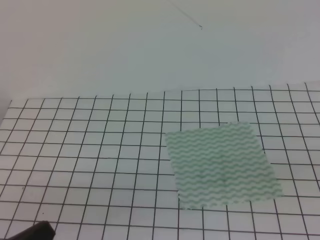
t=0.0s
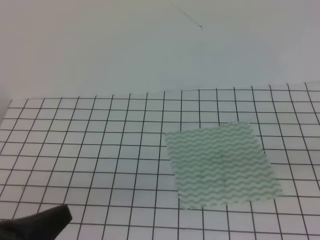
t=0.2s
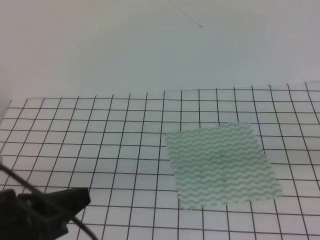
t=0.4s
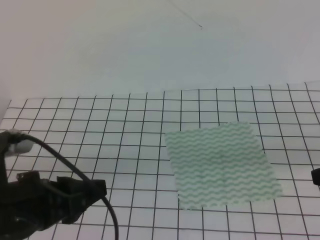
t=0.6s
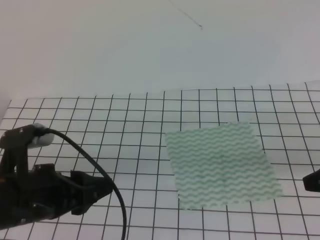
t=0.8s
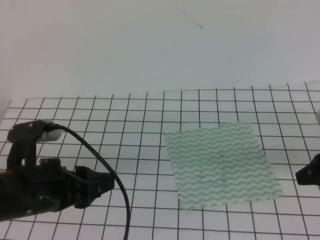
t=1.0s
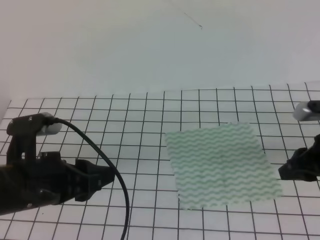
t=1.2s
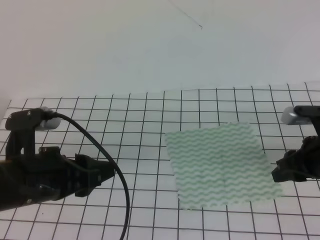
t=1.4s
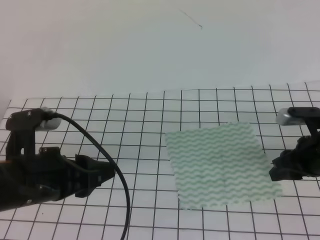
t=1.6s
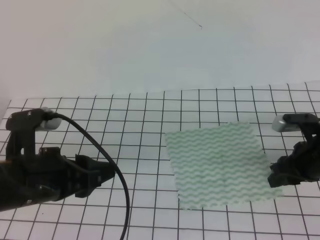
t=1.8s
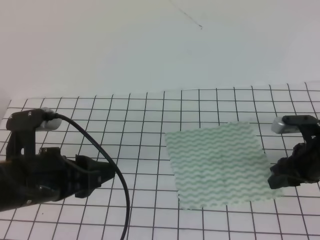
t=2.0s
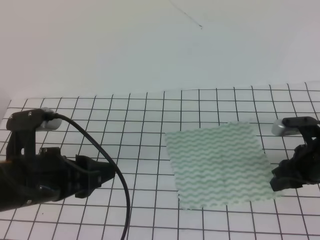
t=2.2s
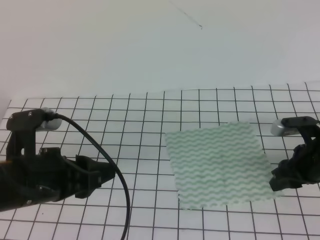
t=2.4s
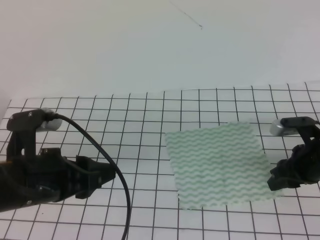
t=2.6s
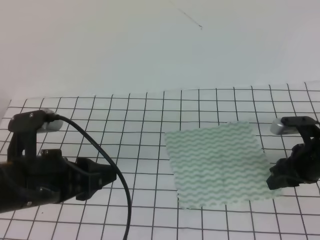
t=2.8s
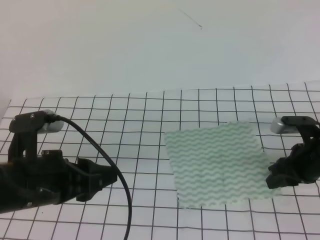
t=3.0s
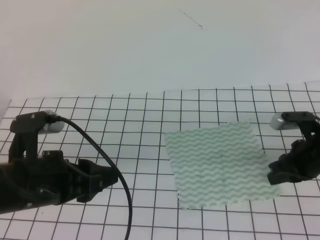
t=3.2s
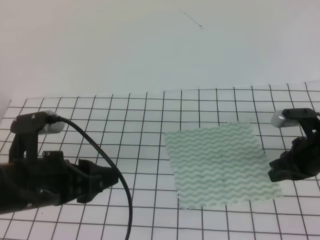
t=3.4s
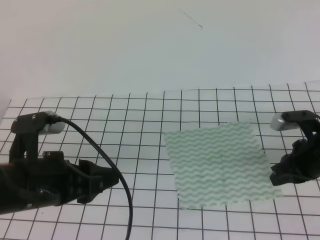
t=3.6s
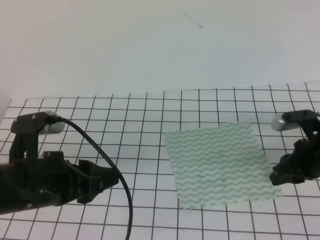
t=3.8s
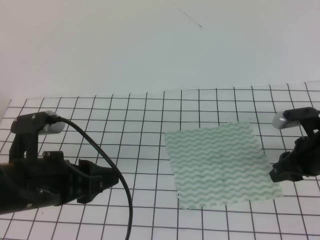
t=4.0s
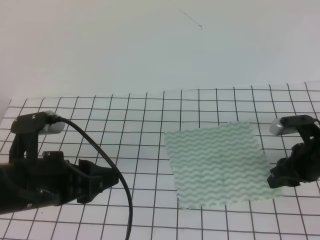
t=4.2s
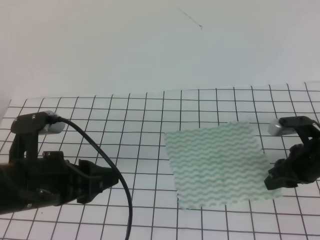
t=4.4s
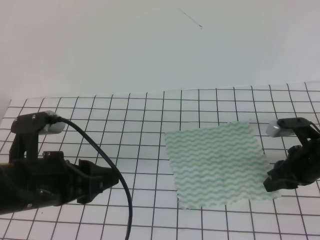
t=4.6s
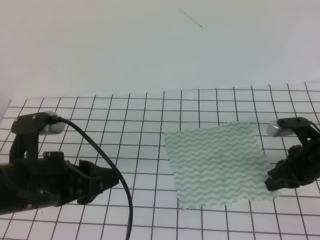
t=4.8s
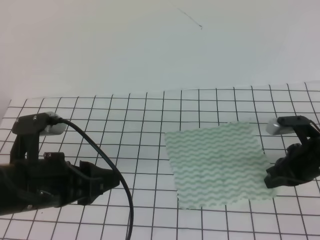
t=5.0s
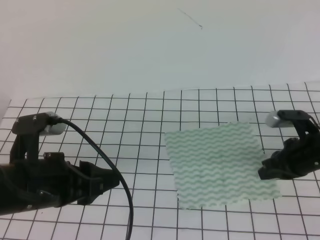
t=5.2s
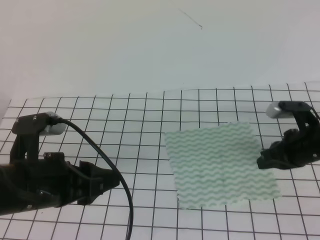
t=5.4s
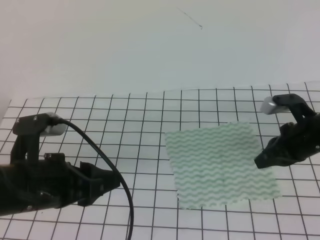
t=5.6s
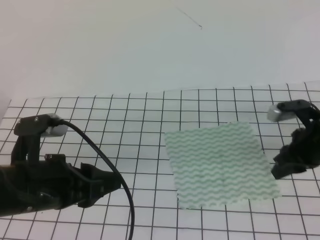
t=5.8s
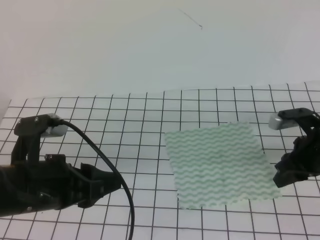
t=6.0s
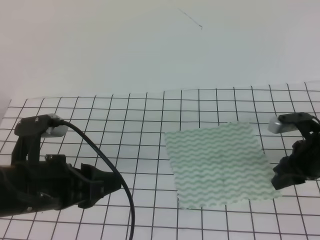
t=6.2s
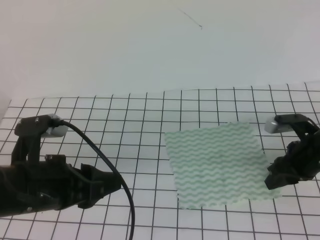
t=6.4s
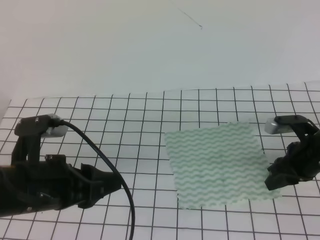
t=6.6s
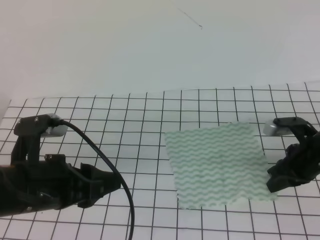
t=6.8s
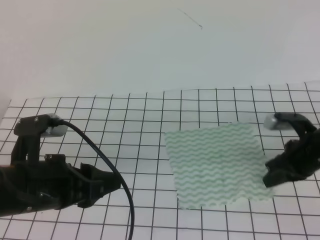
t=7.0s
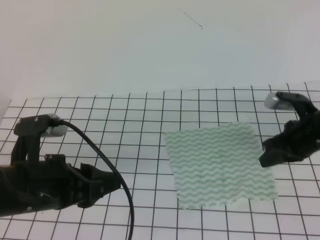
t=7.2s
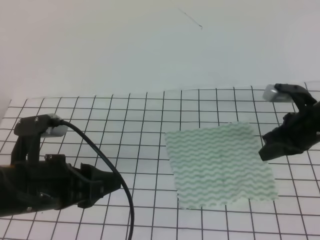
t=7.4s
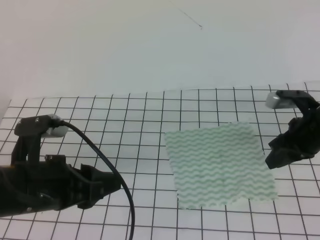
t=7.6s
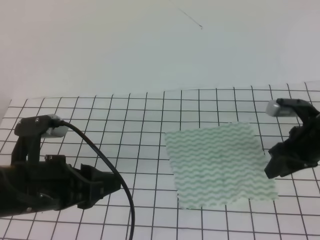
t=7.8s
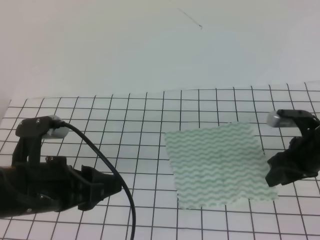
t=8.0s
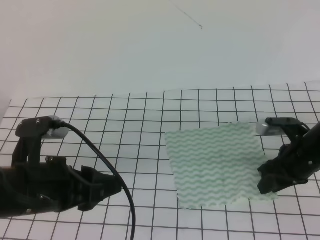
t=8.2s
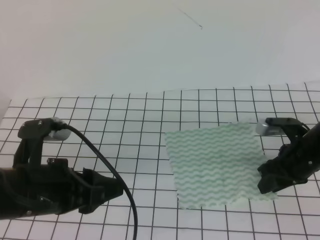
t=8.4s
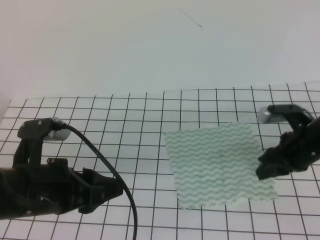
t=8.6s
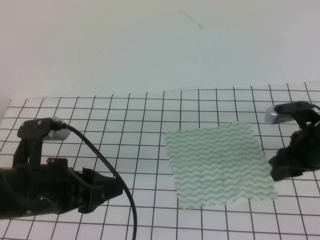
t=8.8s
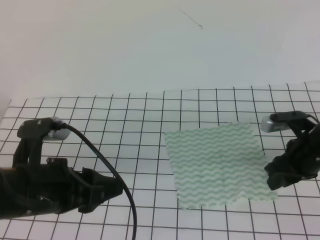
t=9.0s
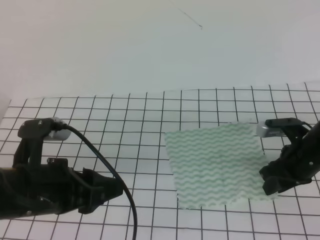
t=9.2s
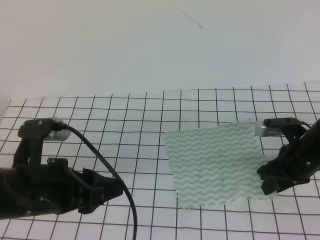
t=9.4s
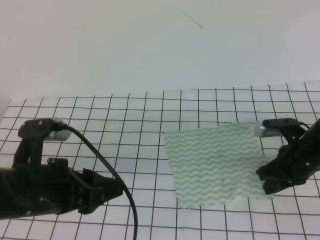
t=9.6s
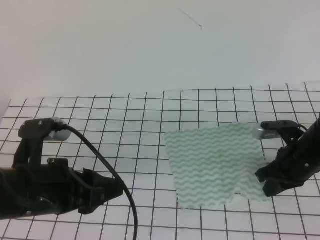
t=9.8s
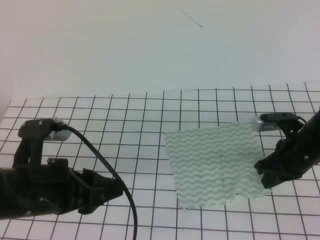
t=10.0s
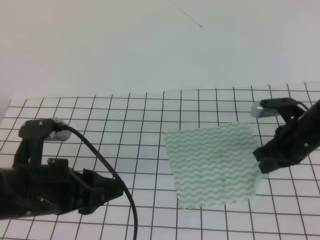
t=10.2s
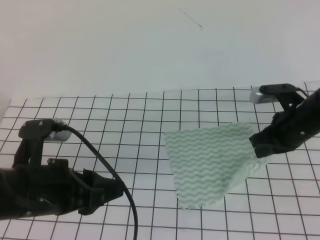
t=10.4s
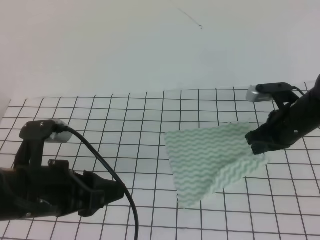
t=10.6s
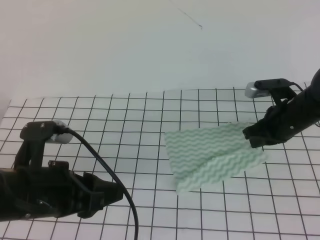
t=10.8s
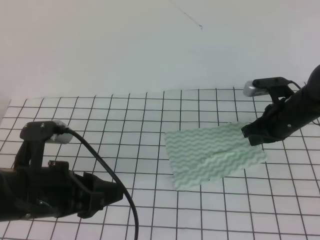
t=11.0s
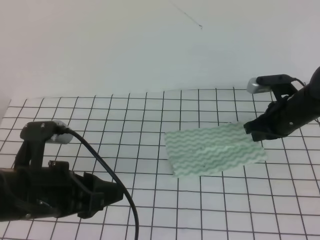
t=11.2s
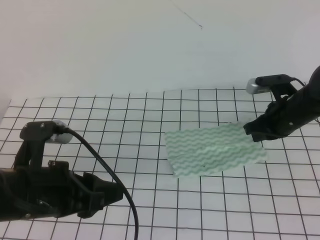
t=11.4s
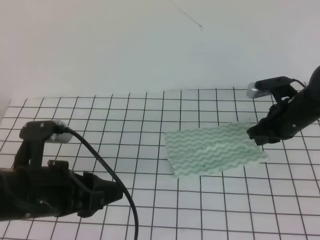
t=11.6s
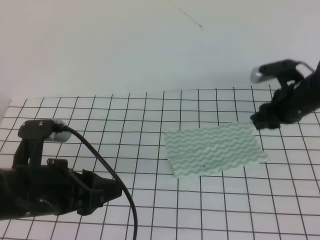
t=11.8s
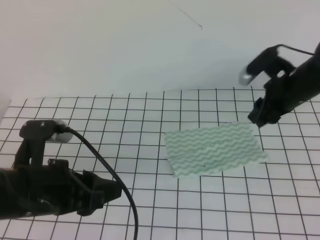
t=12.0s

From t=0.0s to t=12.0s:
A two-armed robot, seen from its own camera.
From t=0.0s to t=1.6s: The left gripper travels forward by approximately 15 cm, and opens up. Meanwhile the right gripper travels forward and downward by about 25 cm, and opens.
From t=1.6s to t=3.0s: The grippers move only a little.
From t=3.0s to t=4.4s: The right gripper closes, then reopens.
From t=4.4s to t=6.0s: The right gripper closes and opens again.
From t=6.0s to t=7.6s: The right gripper closes, then reopens.
From t=7.6s to t=9.0s: The right gripper opens up.
From t=9.0s to t=10.4s: The right gripper closes up.
From t=10.4s to t=12.0s: The right gripper moves forward, roughly 5 cm, and opens its fingers.

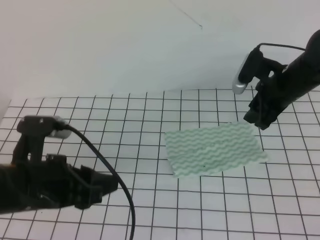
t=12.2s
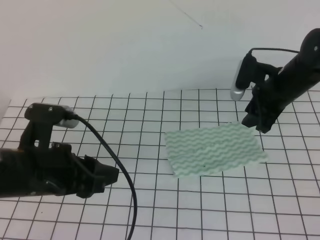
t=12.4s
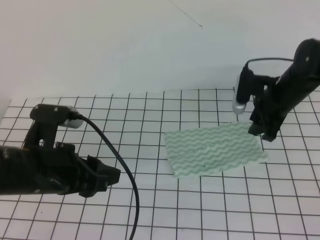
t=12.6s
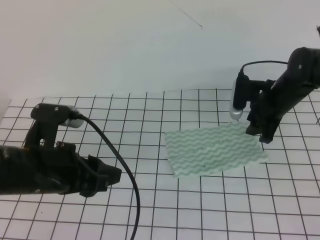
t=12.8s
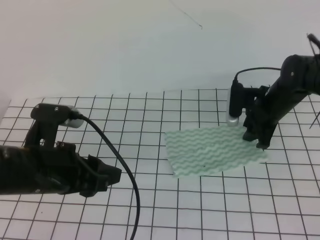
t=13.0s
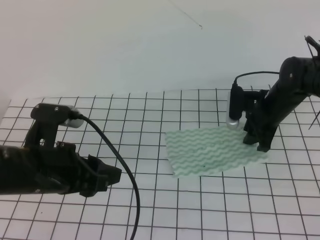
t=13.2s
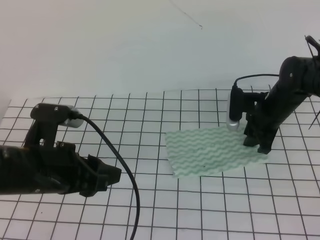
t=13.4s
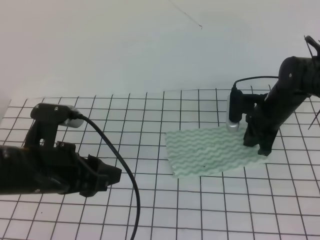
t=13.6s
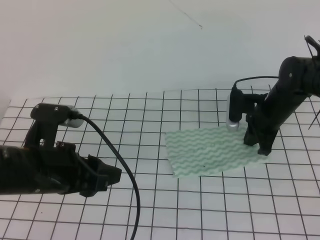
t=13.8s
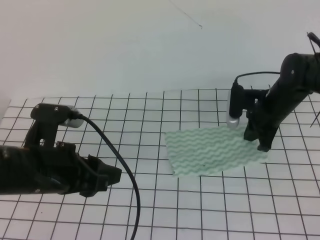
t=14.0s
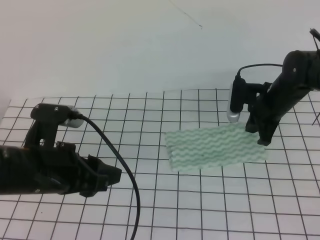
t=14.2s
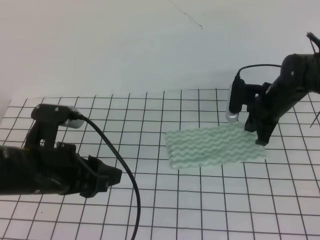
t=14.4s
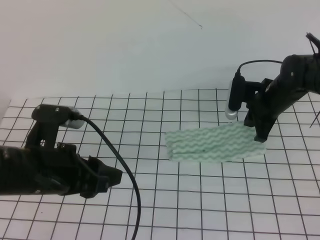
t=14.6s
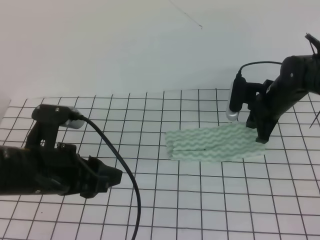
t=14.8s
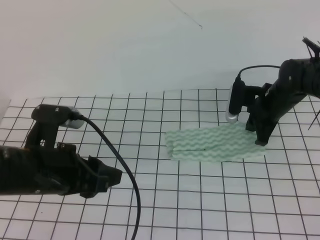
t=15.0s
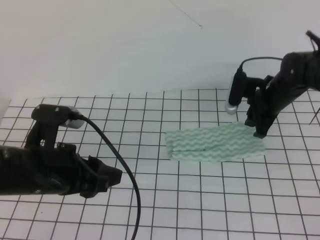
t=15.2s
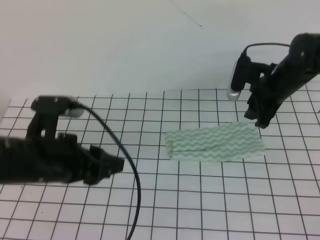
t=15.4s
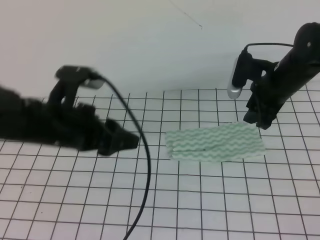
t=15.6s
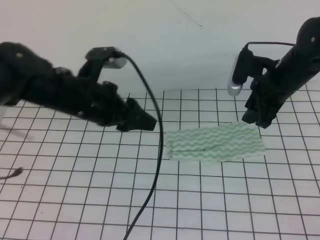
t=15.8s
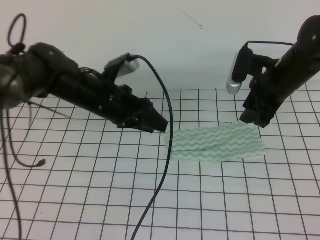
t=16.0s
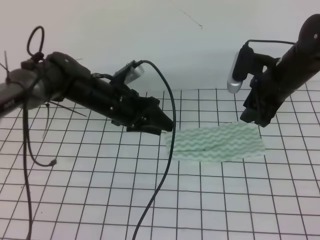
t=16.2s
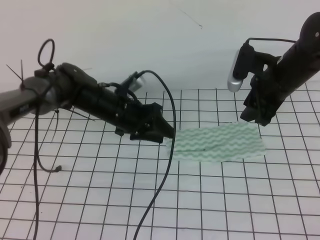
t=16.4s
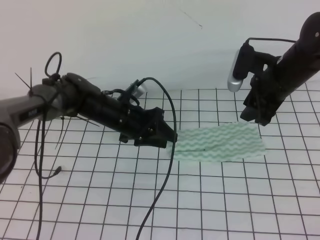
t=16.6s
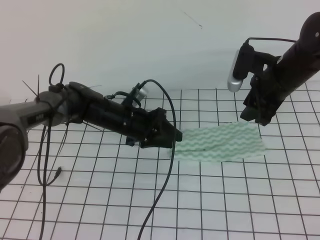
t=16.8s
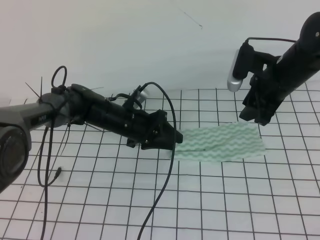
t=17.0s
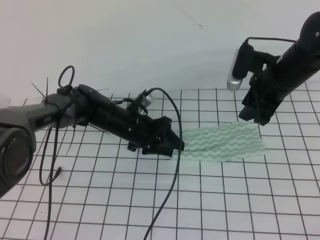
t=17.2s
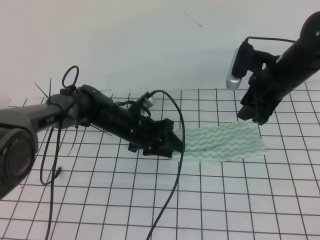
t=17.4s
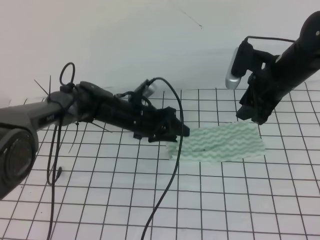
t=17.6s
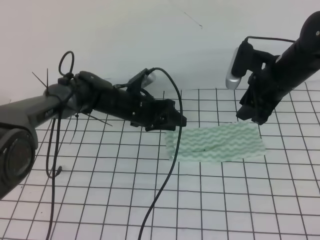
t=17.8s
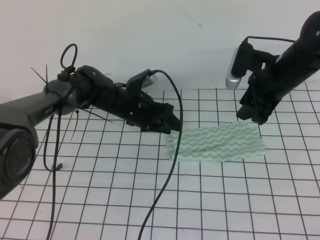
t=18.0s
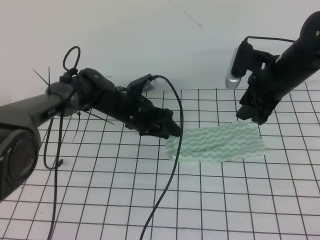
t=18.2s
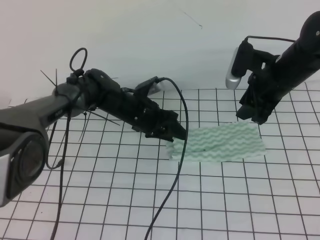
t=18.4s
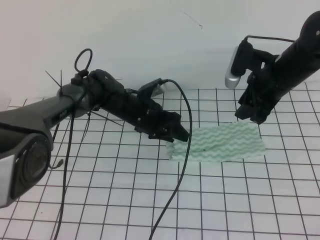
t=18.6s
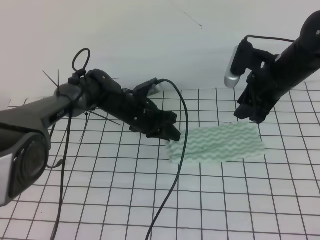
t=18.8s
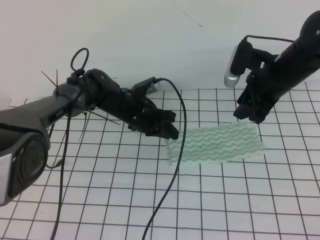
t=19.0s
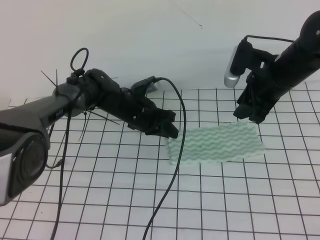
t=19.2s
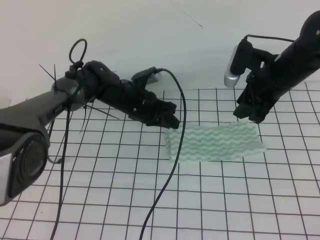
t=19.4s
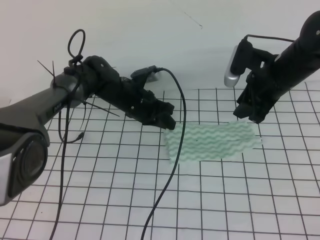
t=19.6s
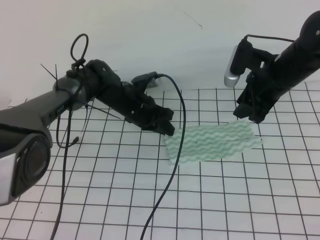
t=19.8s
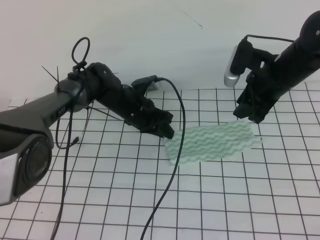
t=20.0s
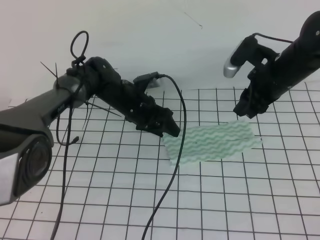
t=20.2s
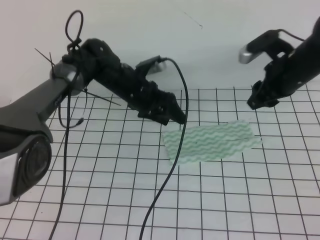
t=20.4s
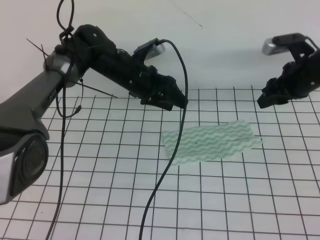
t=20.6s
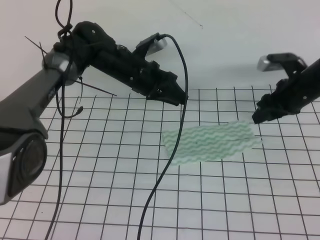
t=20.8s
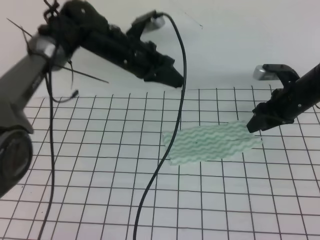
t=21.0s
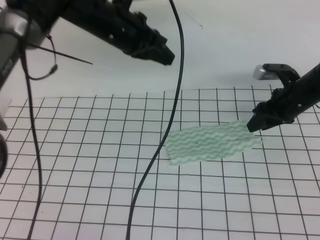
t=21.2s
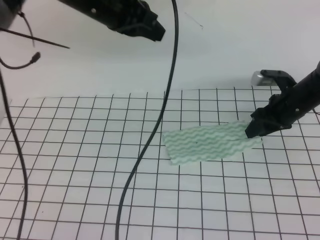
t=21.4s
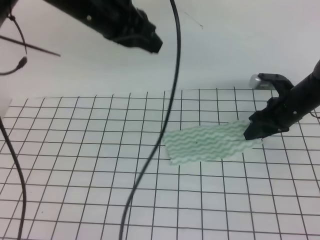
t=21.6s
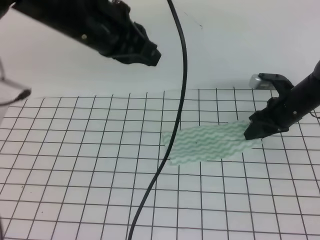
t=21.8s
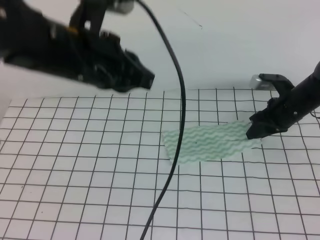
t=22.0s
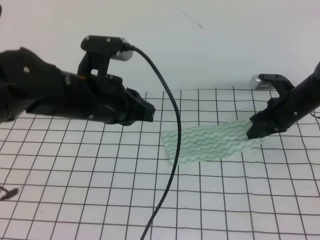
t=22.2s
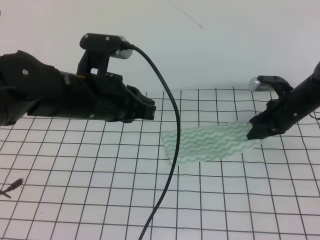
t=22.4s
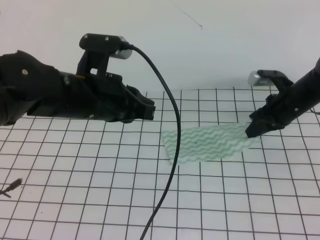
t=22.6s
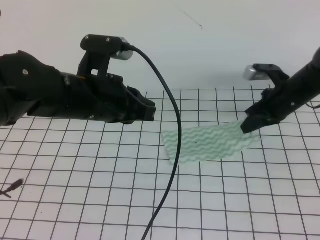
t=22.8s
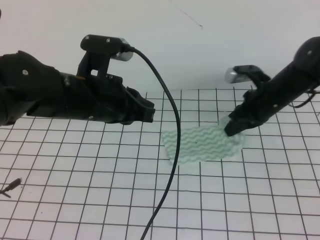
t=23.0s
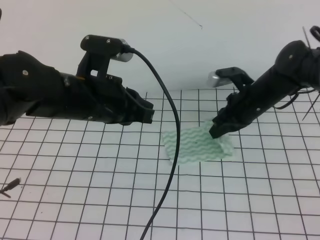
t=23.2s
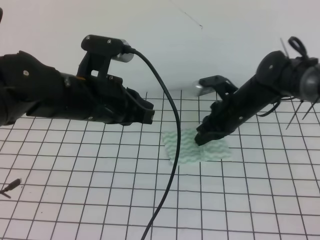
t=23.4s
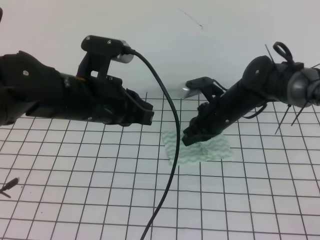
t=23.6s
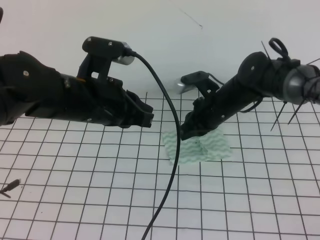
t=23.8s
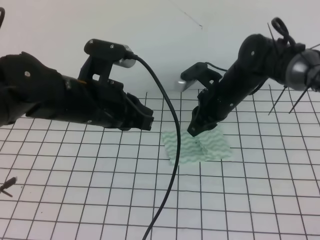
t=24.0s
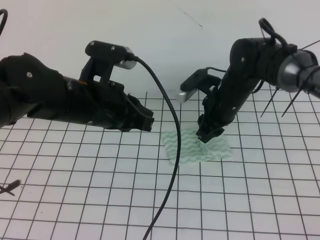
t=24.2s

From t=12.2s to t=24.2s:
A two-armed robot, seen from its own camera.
From t=12.2s to t=13.8s: The right gripper is displaced downward by about 5 cm, and closes.
From t=13.8s to t=15.2s: The right gripper opens.
From t=15.2s to t=16.6s: The left gripper heads forward, downward and to the right, covering approximately 25 cm. The right gripper shifts about 5 cm upward, and opens up.
From t=16.6s to t=18.2s: The grippers make only small movements.
From t=18.2s to t=19.8s: The left gripper closes up.
From t=19.8s to t=21.2s: The left gripper is displaced upward by roughly 20 cm, and opens, then closes again; the right gripper is displaced downward and to the right by some 10 cm.
From t=21.2s to t=22.6s: The right gripper closes up, while the left gripper shifts approximately 15 cm backward.
From t=22.6s to t=24.2s: The right gripper travels to the left by some 15 cm, and opens.
